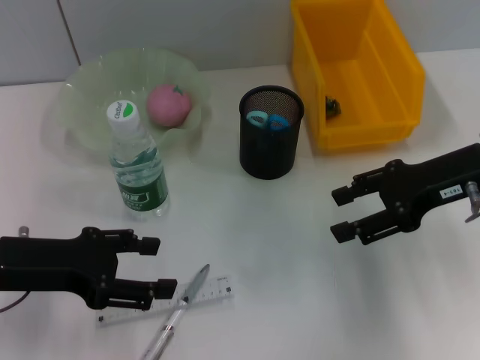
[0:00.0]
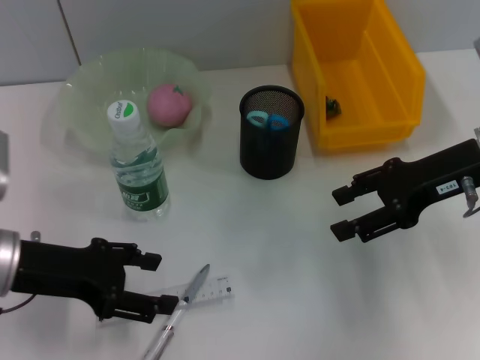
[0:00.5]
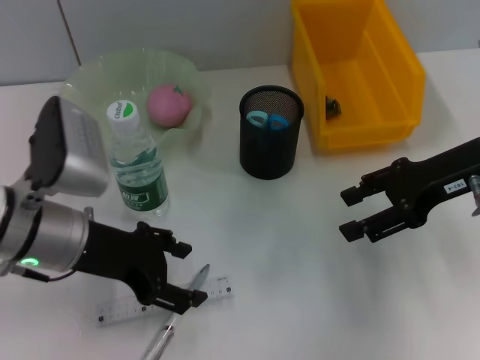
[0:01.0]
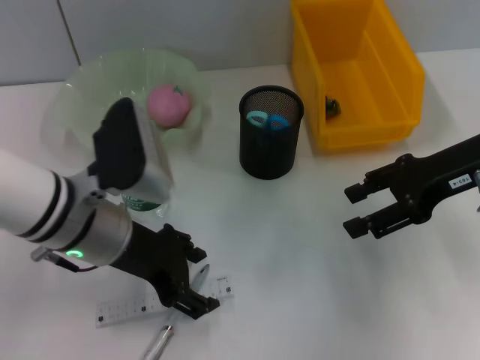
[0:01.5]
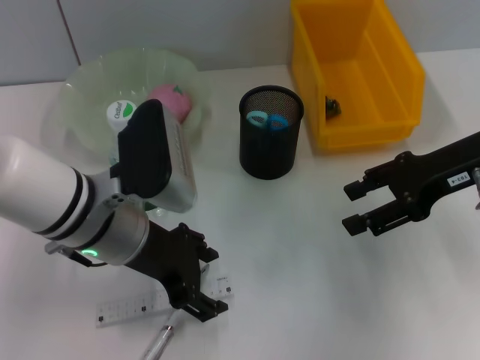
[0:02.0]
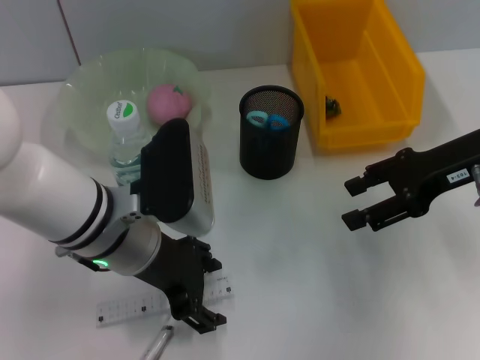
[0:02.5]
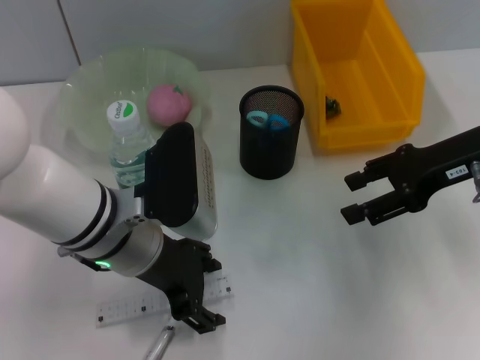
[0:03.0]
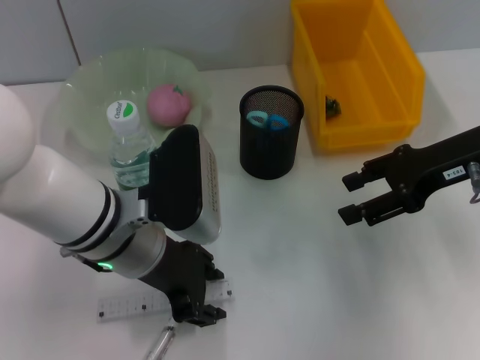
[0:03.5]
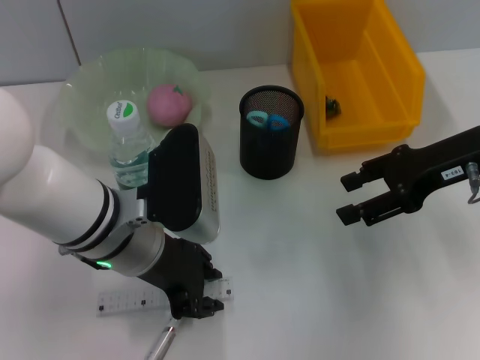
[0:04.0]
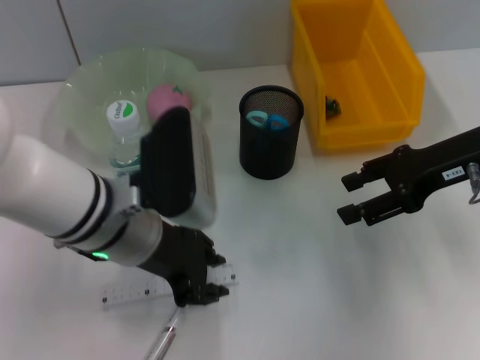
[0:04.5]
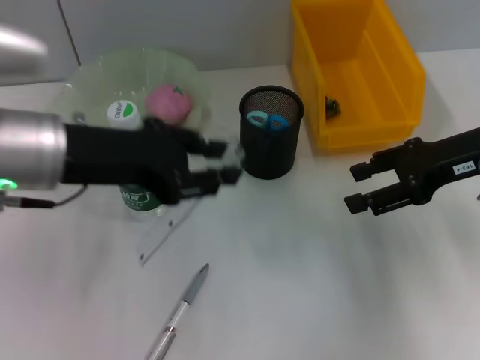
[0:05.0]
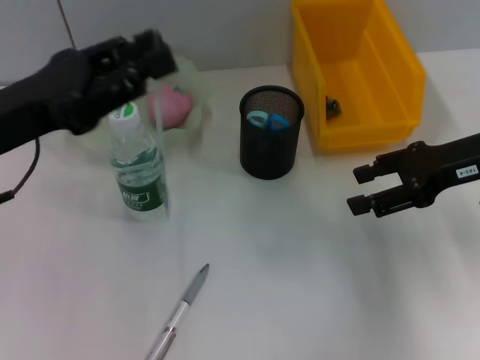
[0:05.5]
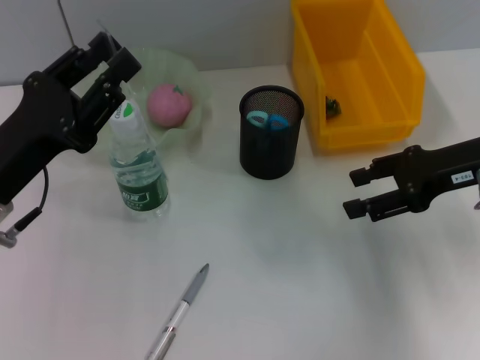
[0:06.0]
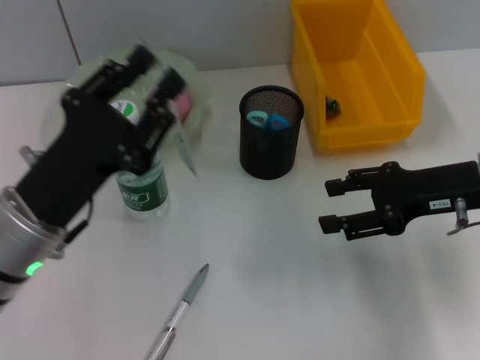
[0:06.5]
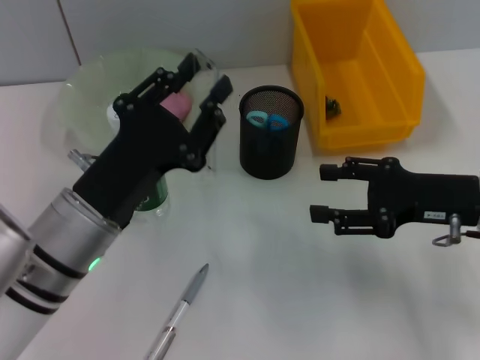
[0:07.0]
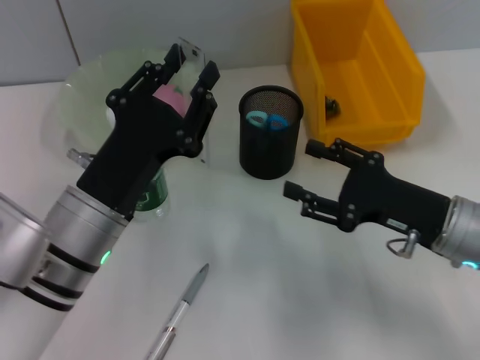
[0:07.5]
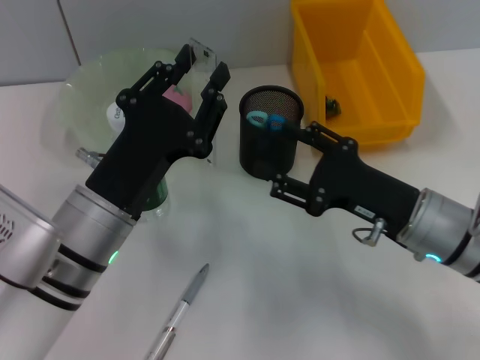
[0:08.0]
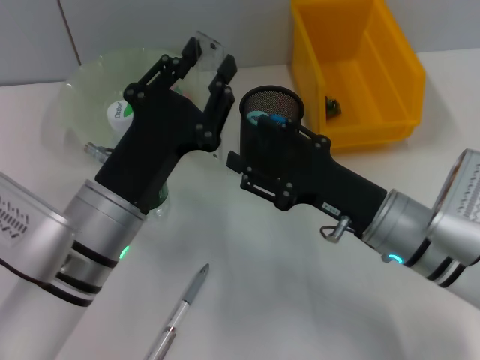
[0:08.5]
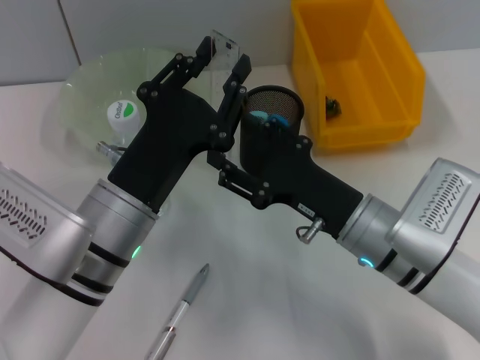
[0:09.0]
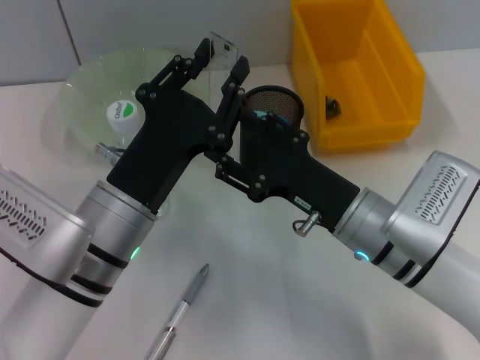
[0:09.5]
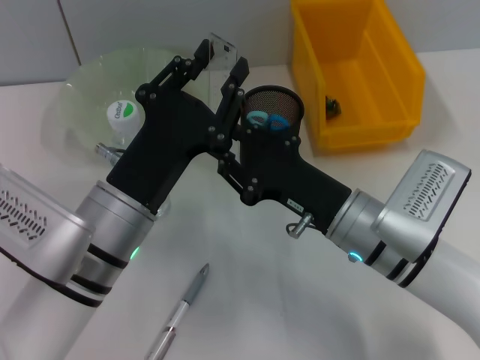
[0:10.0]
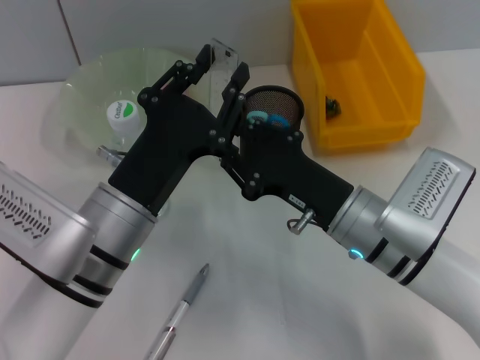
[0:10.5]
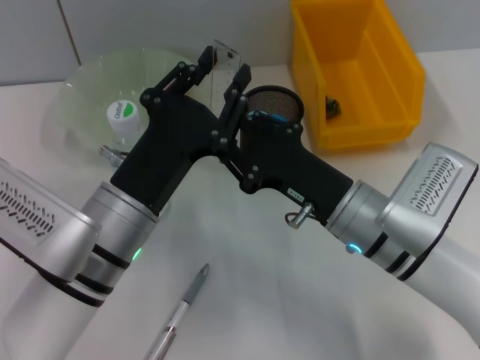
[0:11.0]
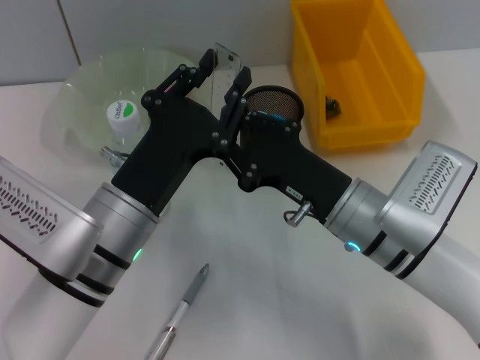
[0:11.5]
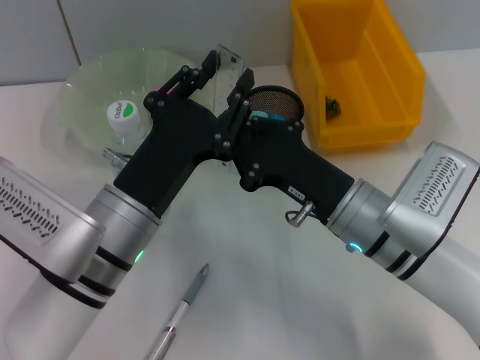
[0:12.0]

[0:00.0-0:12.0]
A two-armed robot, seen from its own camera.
Step, 0:00.0 to 0:04.0: Grab the ruler with the left hand.
0:00.0 to 0:02.0: The left gripper shifts about 15 cm to the right.
0:02.0 to 0:04.0: The left gripper closes up.
0:04.0 to 0:06.0: The left gripper goes roughly 10 cm to the left.
0:06.0 to 0:08.0: The right gripper moves downward, to the left and backward, about 15 cm, while the left gripper moves to the right, about 10 cm.
0:08.0 to 0:10.0: The right gripper travels to the left by about 5 cm.
0:10.0 to 0:12.0: The right gripper closes up.

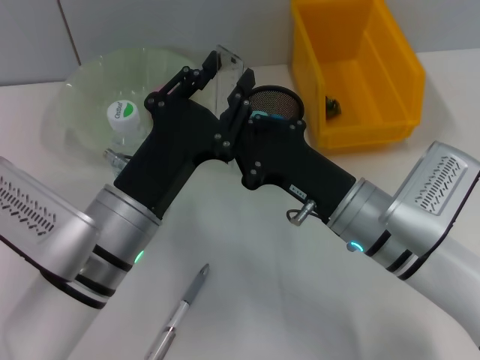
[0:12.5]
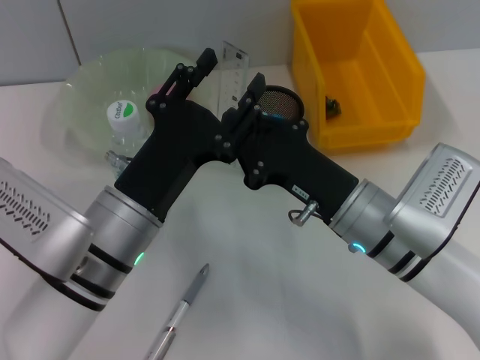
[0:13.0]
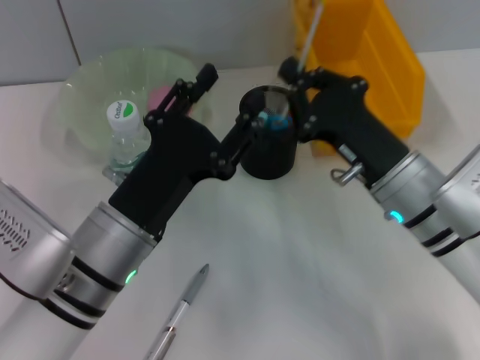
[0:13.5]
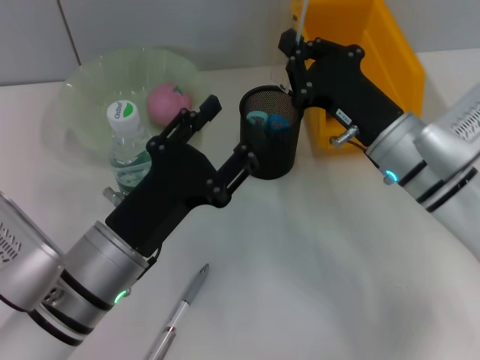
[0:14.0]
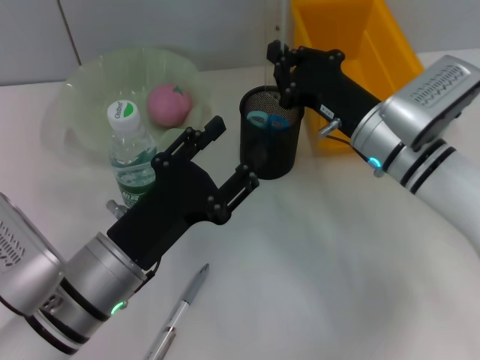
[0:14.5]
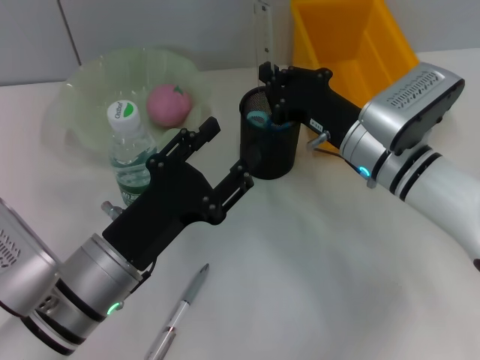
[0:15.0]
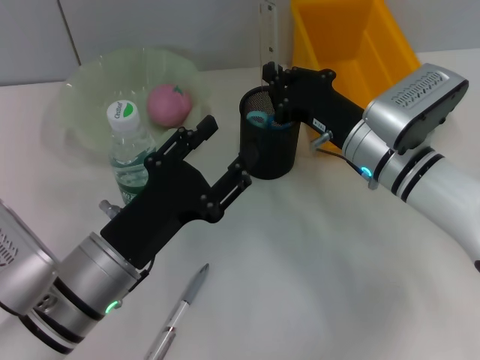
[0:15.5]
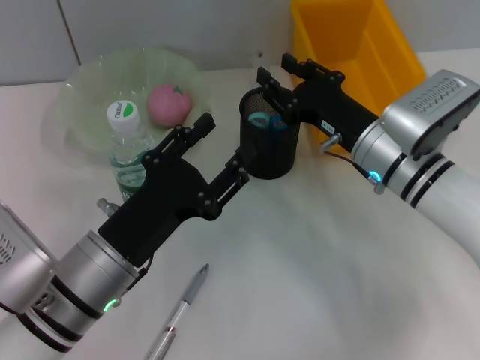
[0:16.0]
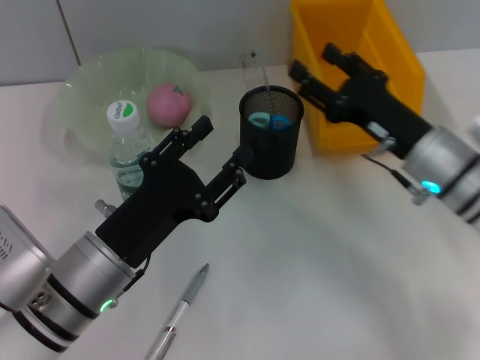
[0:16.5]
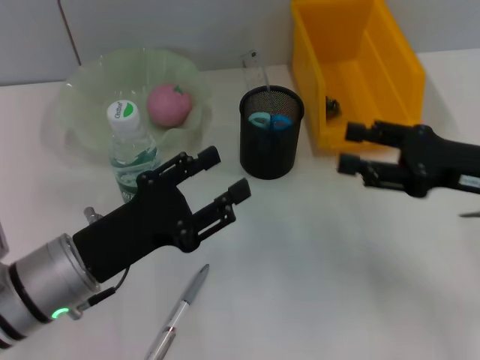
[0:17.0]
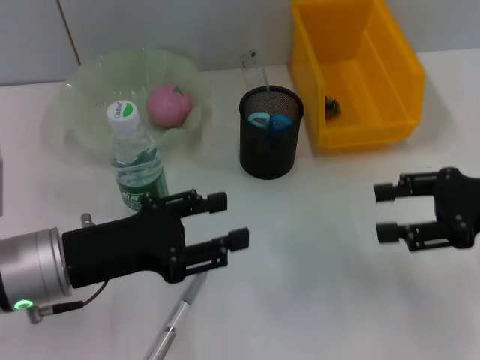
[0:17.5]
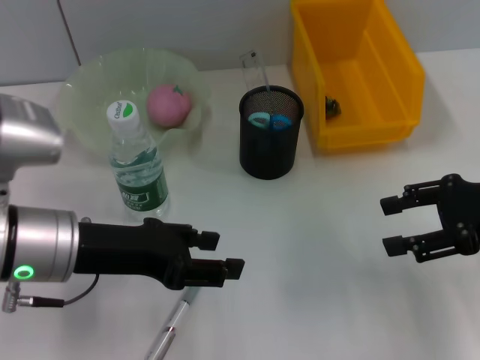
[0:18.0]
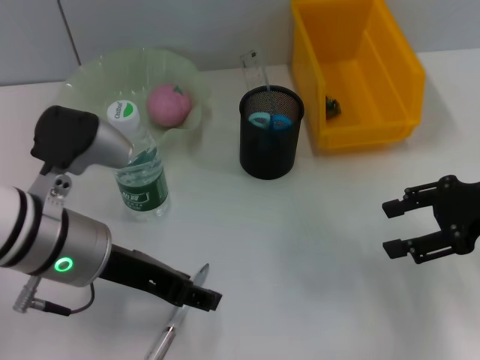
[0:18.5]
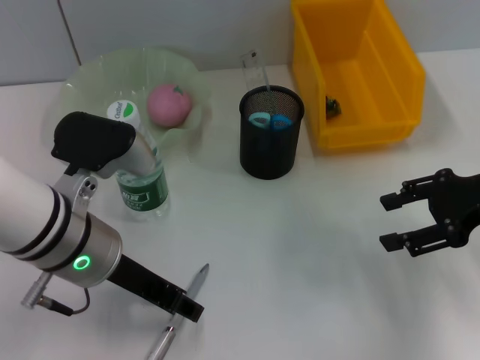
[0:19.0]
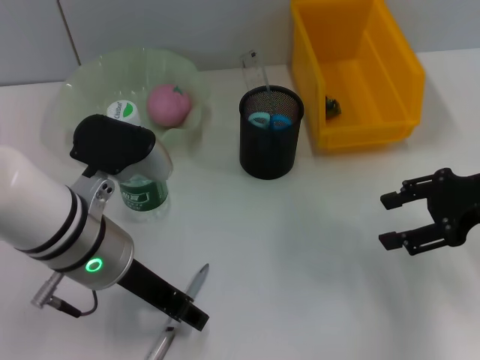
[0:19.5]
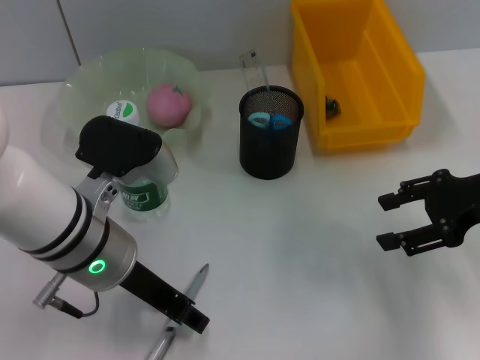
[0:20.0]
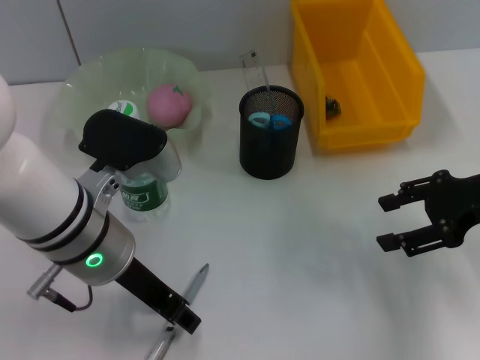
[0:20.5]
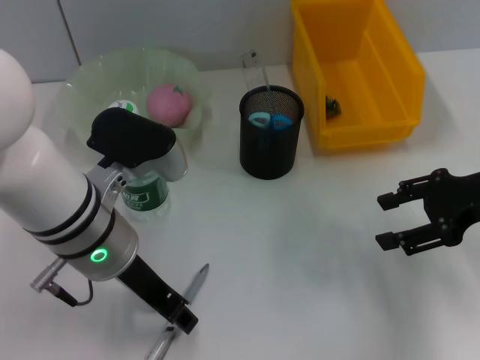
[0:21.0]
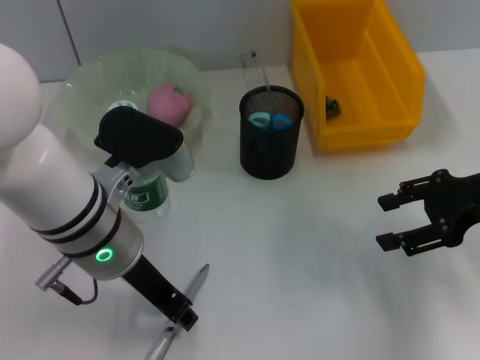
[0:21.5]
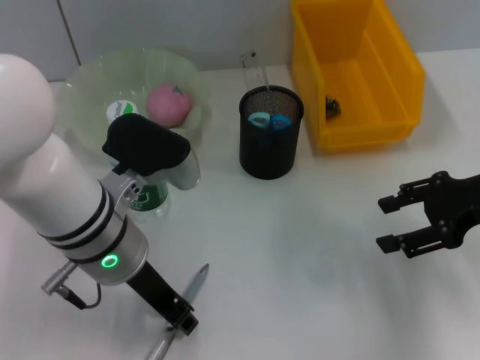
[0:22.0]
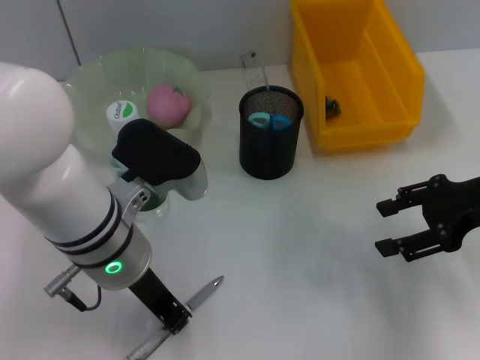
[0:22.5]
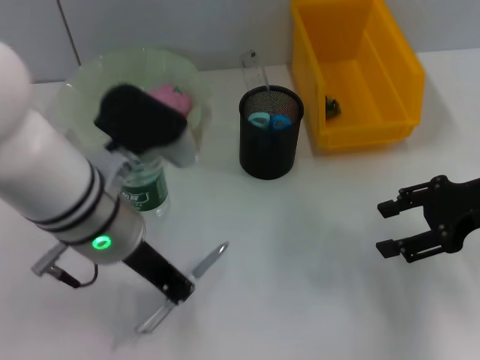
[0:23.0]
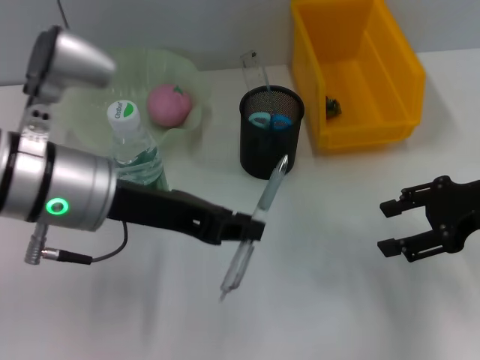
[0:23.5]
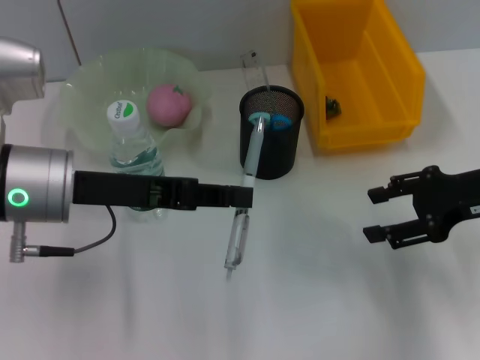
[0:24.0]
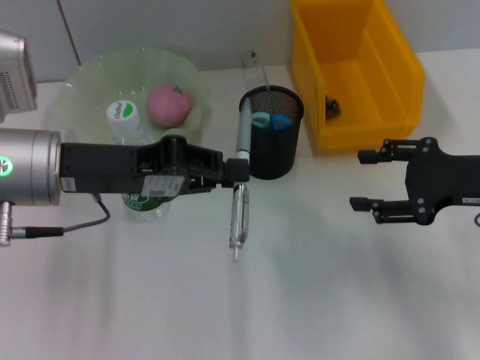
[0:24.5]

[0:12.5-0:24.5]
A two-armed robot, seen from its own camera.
Step, 0:14.0 to 0:16.0: Place the ruler into the pen holder with the right hand.
Step, 0:16.5 to 0:22.0: Grab the gray spring-action pen with the left hand.
0:12.5 to 0:14.5: The left gripper opens up; the right gripper travels forward by about 10 cm.
0:14.5 to 0:16.5: The right gripper changes place by some 5 cm, and opens its fingers.
0:16.5 to 0:18.5: The left gripper travels upward by some 10 cm, while the right gripper shifts some 10 cm to the right and upward.
0:18.5 to 0:20.5: There are only small adjustments of the grippers.
0:20.5 to 0:22.5: The left gripper closes.
0:22.5 to 0:24.5: The left gripper moves to the left, approximately 10 cm.

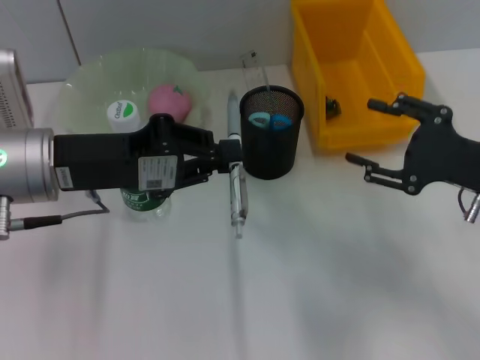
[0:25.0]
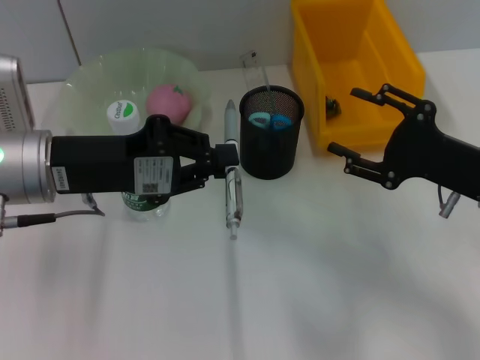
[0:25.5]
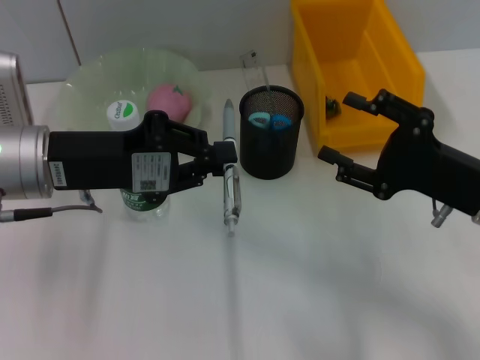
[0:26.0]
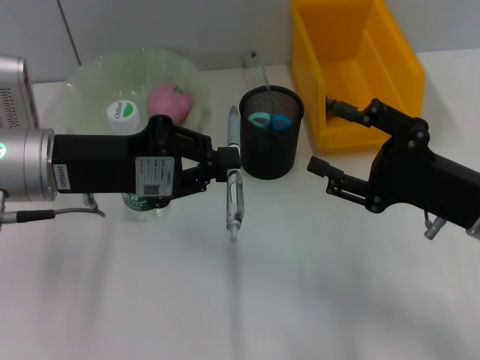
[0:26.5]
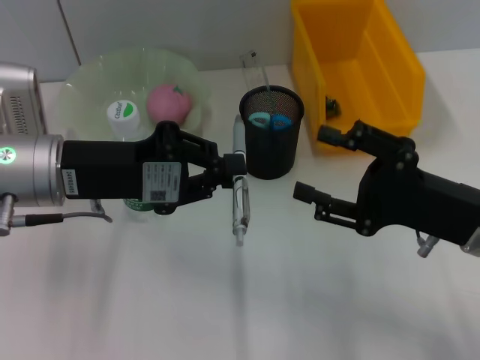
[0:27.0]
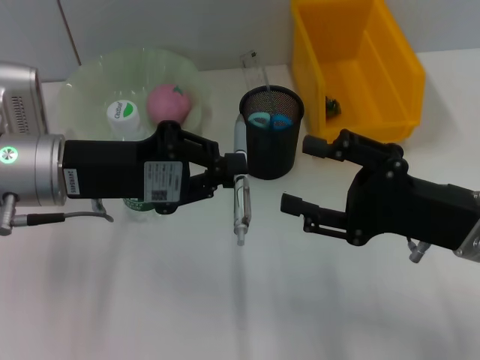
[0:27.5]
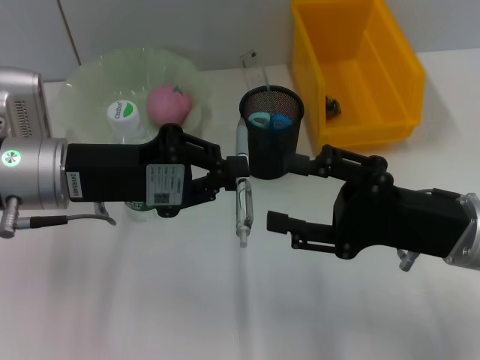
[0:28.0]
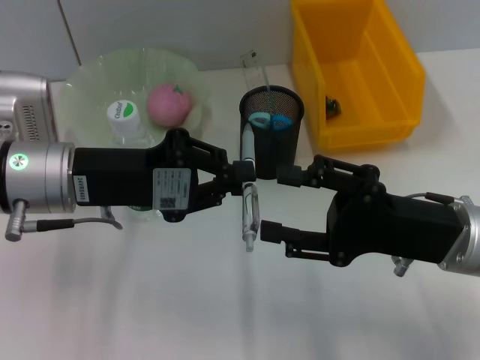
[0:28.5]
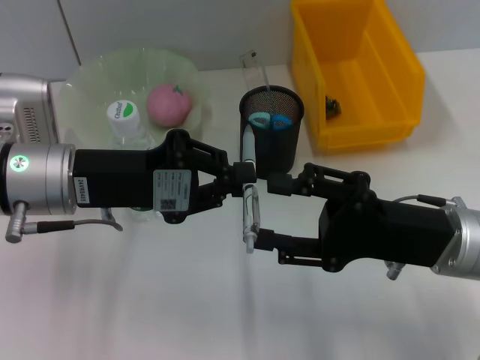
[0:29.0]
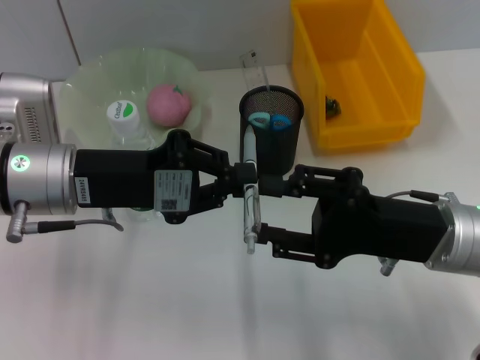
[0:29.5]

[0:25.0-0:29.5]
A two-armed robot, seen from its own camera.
0:25.0 to 0:27.0: The right gripper goes some 5 cm to the left.
